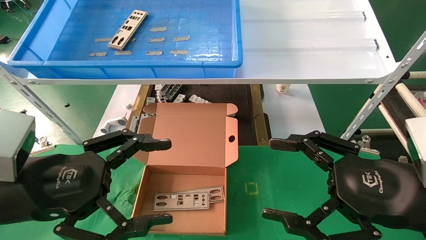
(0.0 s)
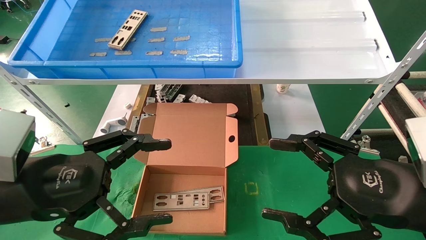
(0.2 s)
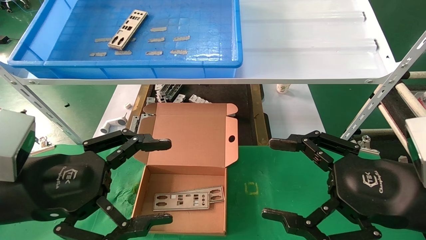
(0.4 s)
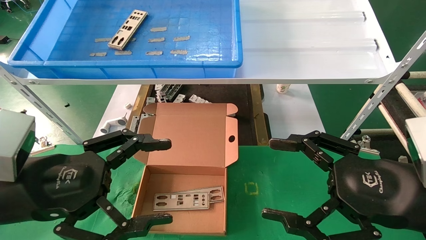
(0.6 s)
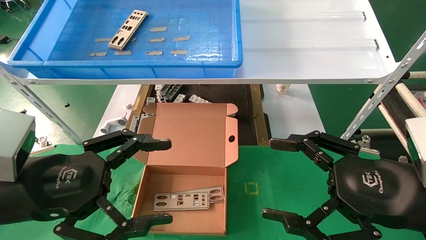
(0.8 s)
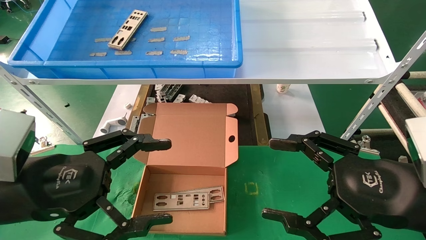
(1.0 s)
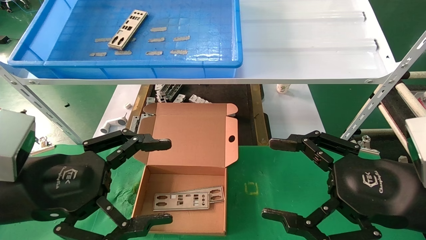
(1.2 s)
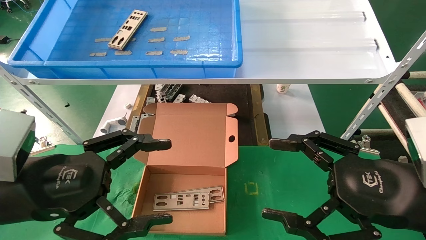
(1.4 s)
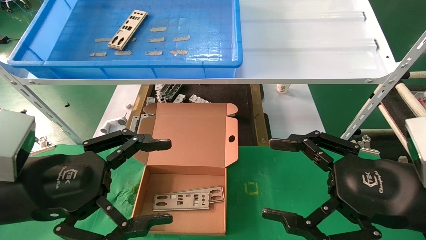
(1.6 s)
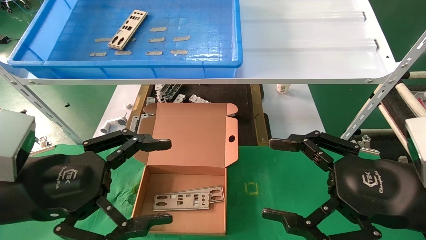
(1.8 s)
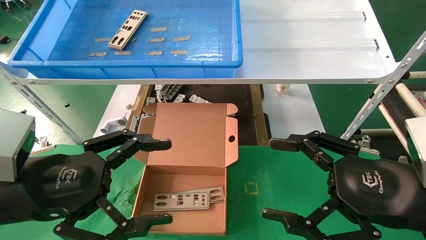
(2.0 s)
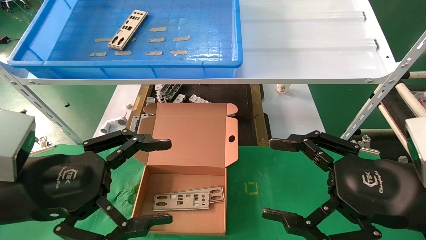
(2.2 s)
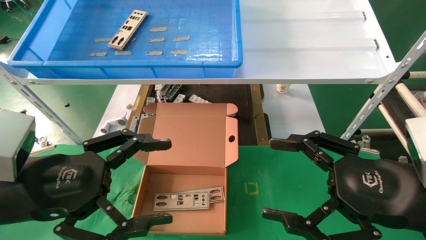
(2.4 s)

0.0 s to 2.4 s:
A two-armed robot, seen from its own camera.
Task of the whole recording: pick up the parts on the tray and put them in the cardboard box.
0.0 to 2.4 s: Both grippers stay about where they are.
